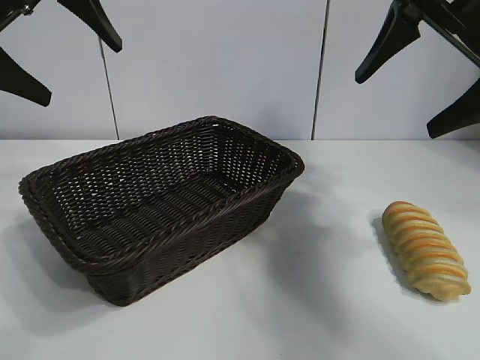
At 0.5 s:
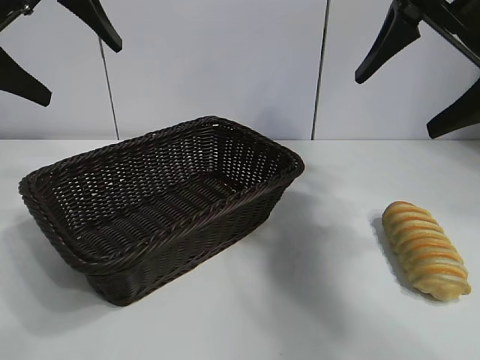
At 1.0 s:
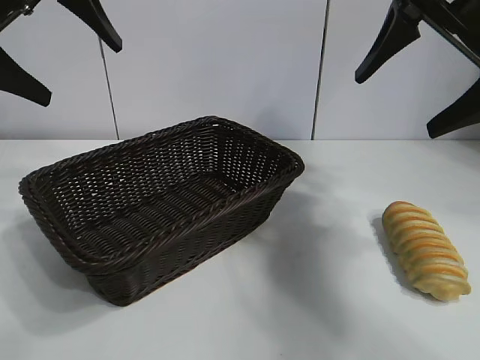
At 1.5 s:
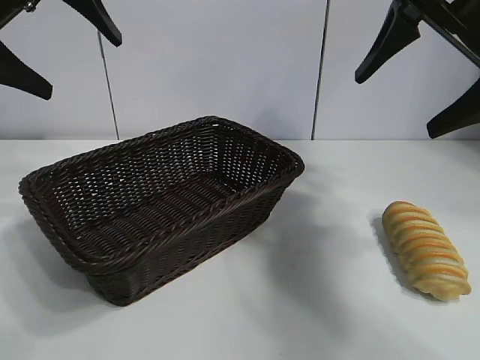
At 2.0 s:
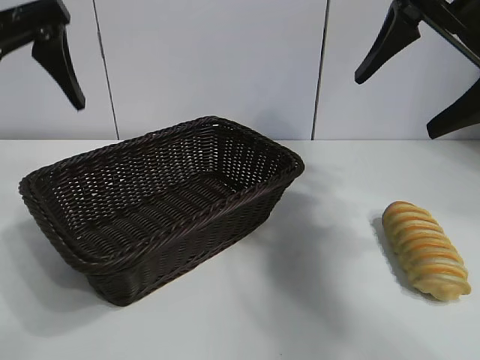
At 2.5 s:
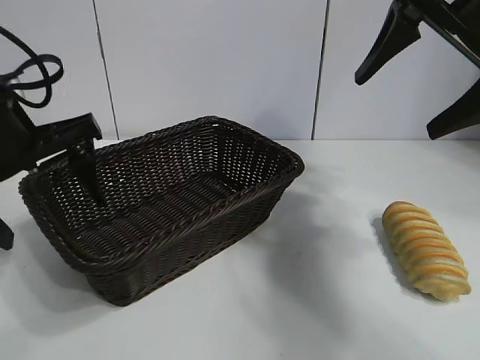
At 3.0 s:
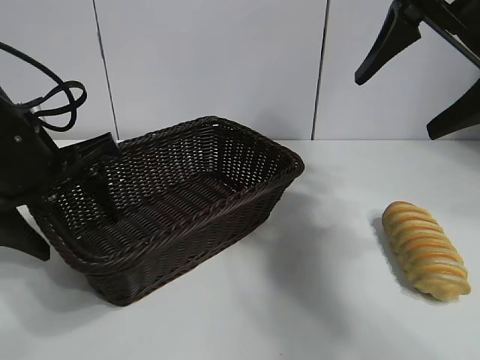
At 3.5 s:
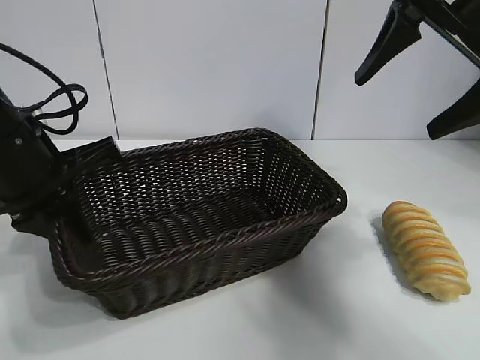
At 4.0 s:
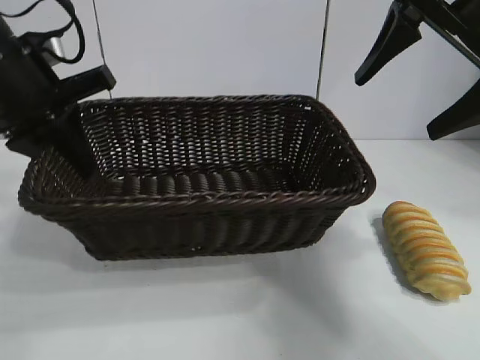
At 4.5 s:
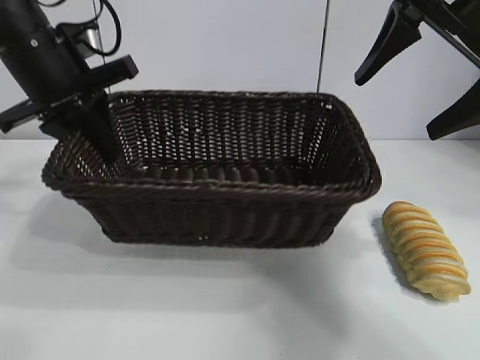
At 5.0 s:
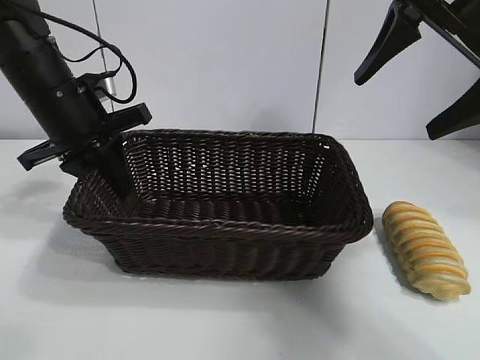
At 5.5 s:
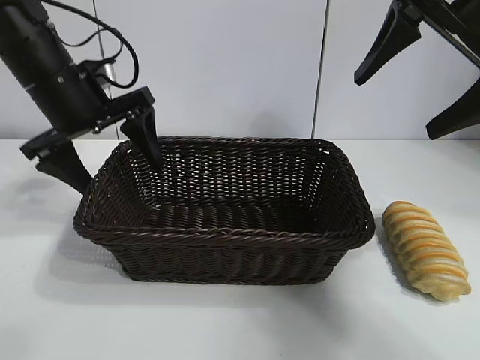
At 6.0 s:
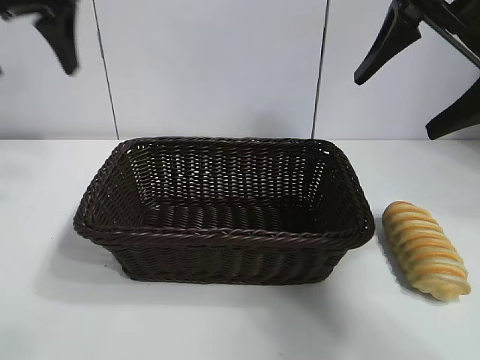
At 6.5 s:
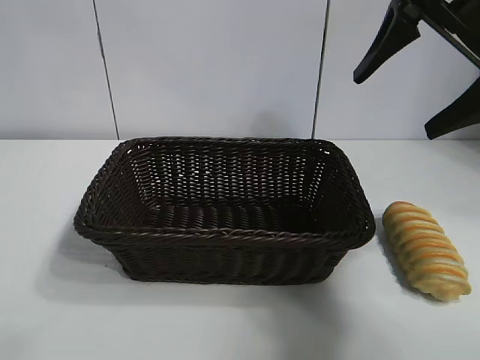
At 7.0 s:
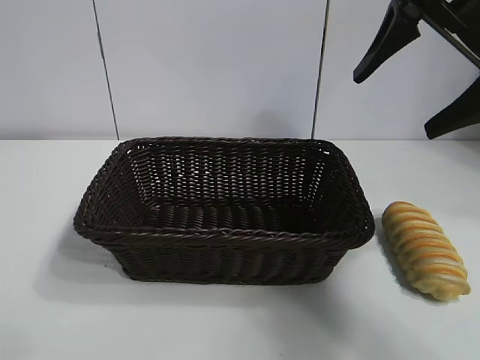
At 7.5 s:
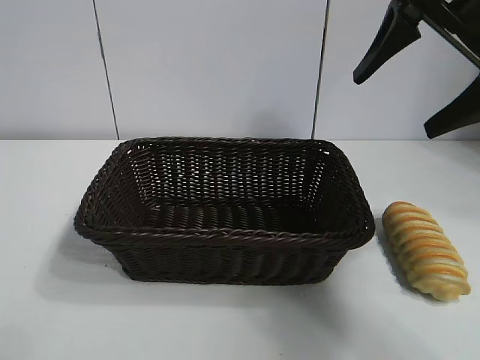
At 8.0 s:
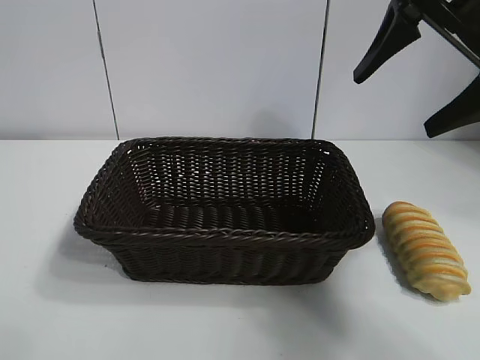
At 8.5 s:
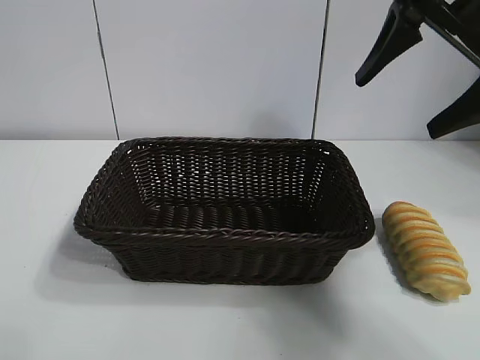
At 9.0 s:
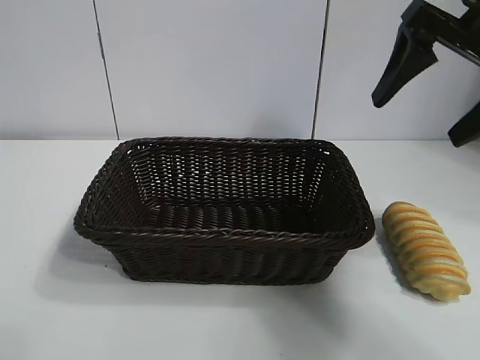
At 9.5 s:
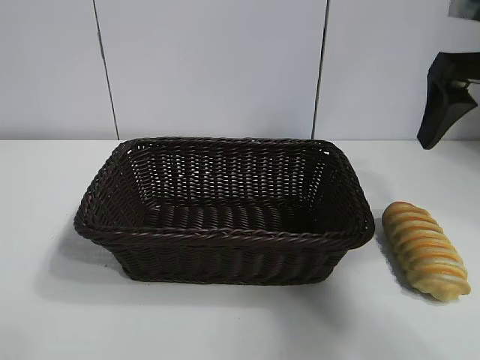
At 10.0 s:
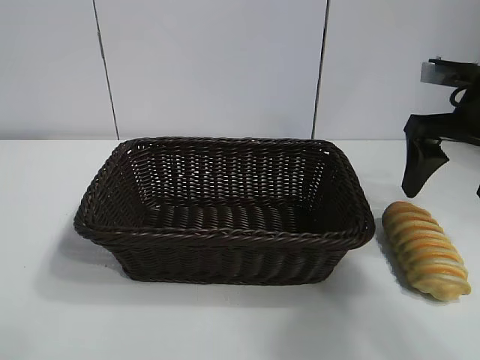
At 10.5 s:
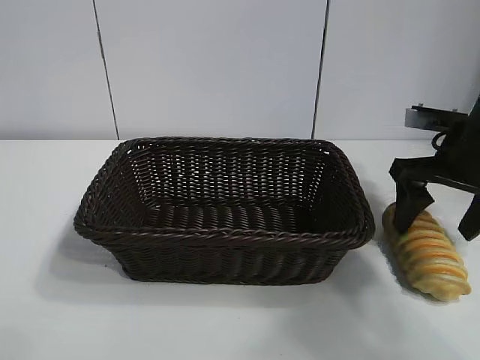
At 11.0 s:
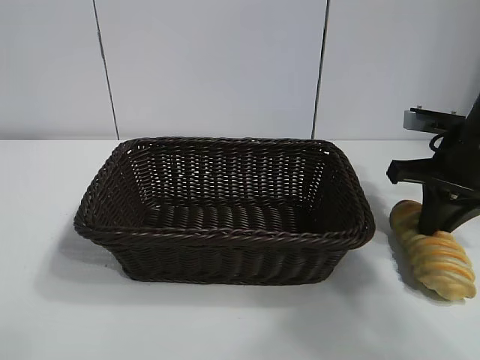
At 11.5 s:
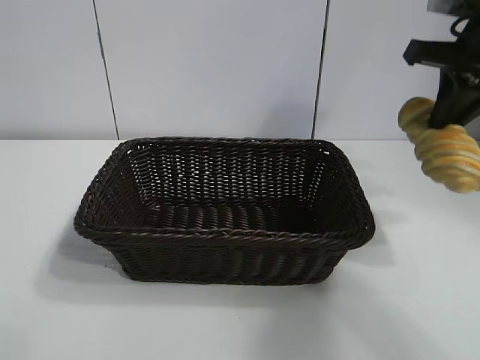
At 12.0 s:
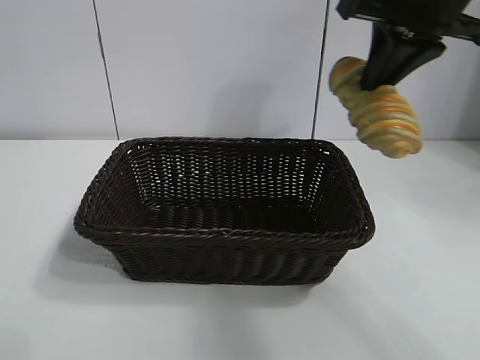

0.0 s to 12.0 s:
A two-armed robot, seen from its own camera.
Task of the whole recording: pick up the long bread and put it into the basket.
Step, 1.5 to 3.0 s: Grasp the basket with the left gripper.
Step, 3.5 to 5.0 s: Place the basket in the center of the table with the left gripper.
Step, 5.5 to 11.0 s: Grasp the long bread with right gripper.
